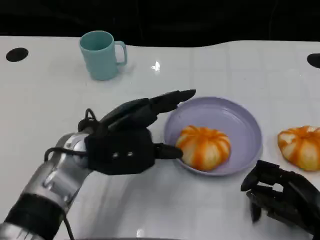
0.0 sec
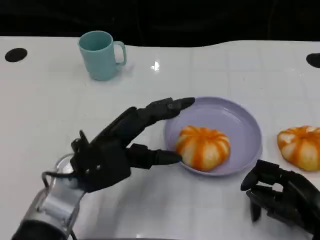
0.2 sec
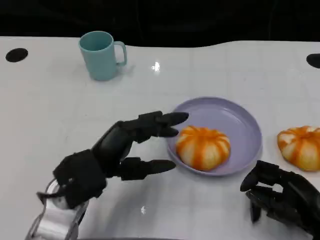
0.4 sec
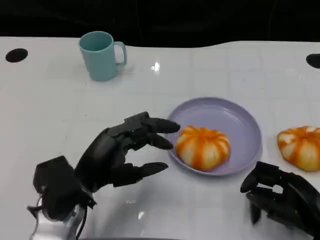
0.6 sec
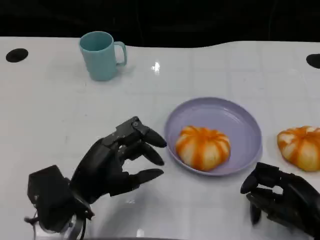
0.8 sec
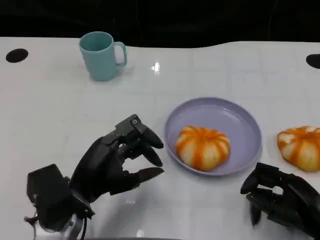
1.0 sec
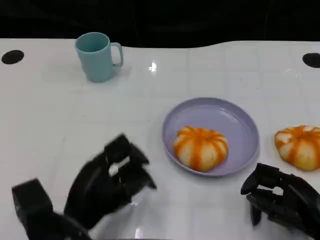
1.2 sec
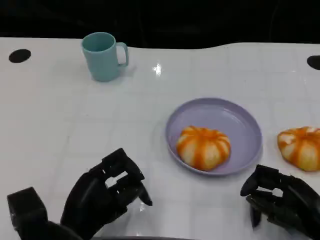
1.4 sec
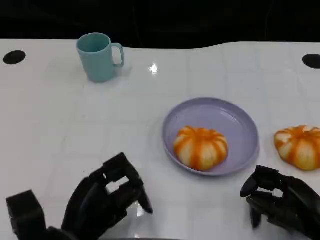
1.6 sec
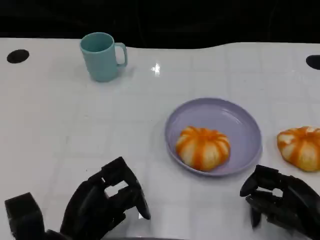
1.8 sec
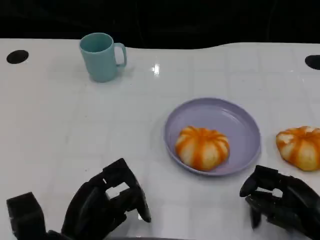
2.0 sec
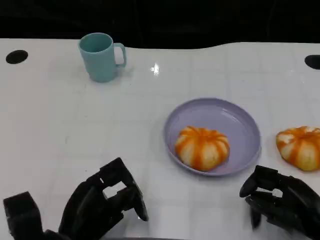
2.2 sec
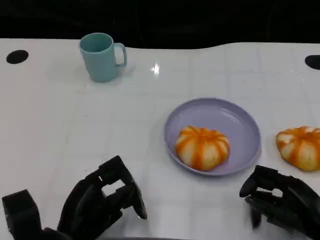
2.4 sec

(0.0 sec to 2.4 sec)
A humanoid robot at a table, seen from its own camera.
Task of the whole recording: Grasp the bread from the table and place it into the plate.
0.0 sec - 1.2 sec: The left hand is displaced backward and downward by roughly 15 cm.
1.2 sec - 2.4 sec: The hands stay close to where they were, moving slightly.
